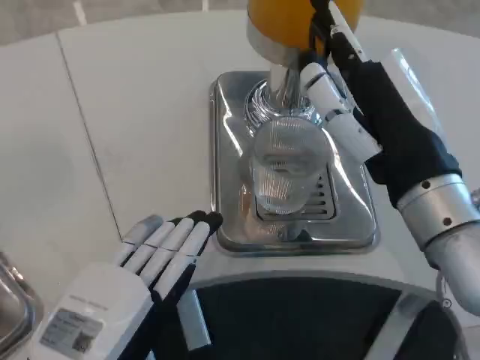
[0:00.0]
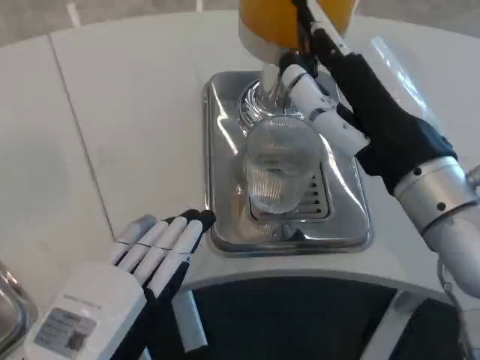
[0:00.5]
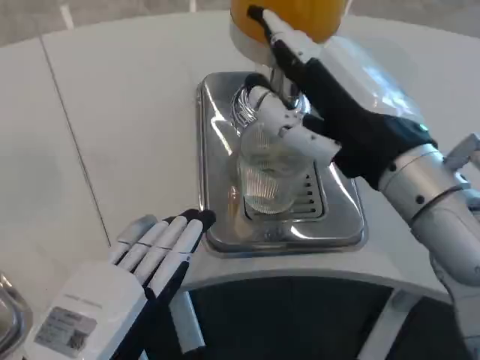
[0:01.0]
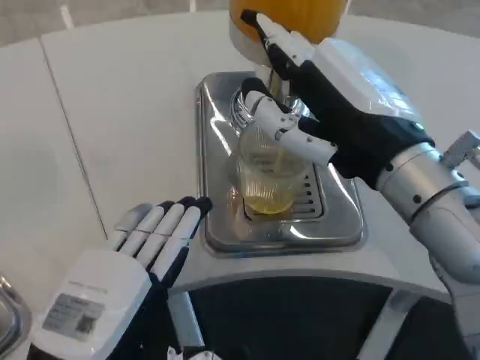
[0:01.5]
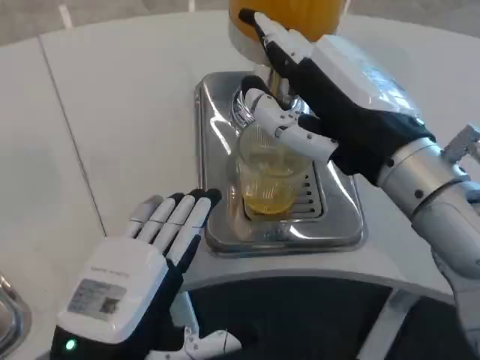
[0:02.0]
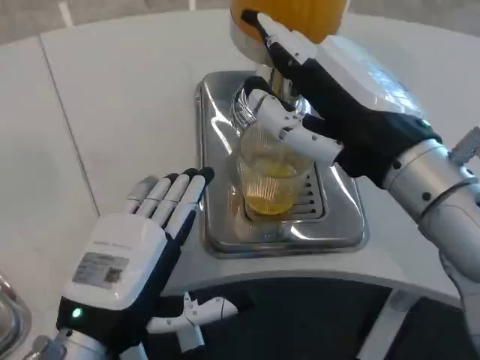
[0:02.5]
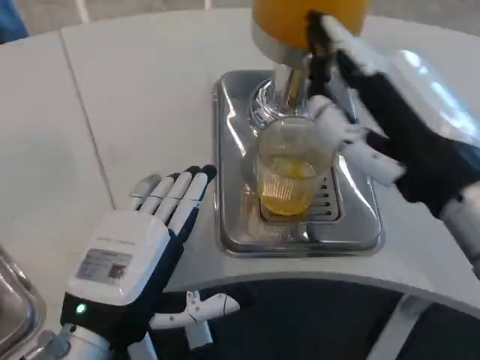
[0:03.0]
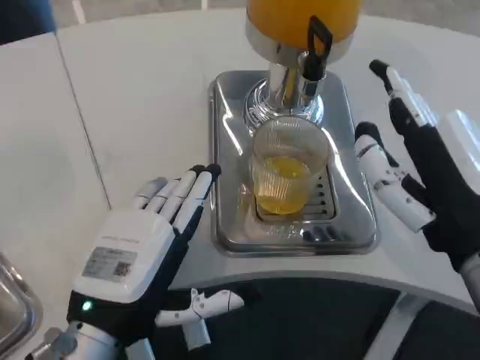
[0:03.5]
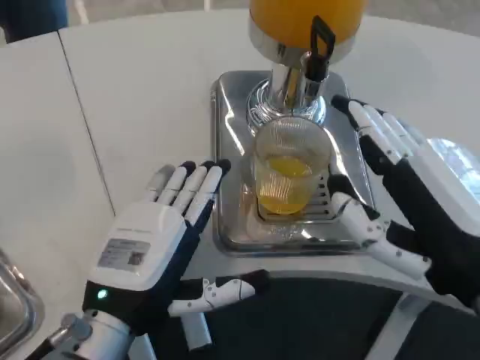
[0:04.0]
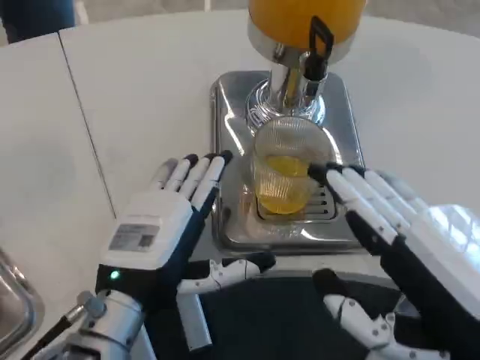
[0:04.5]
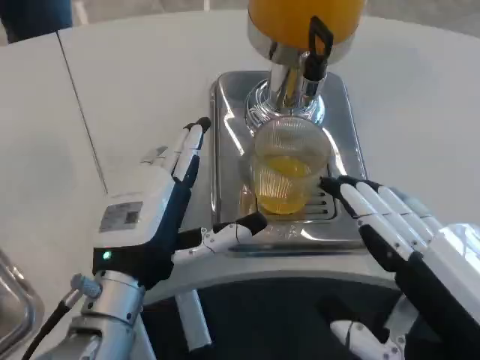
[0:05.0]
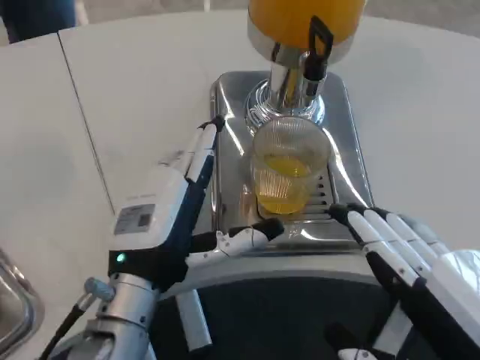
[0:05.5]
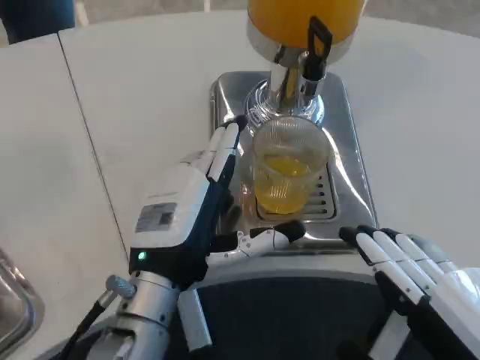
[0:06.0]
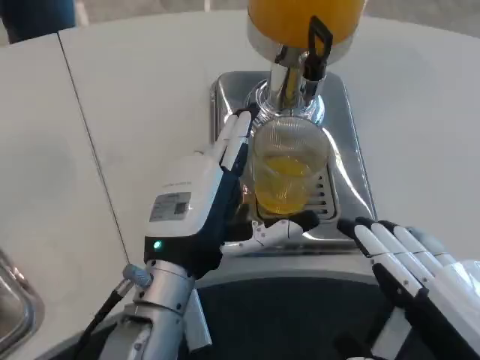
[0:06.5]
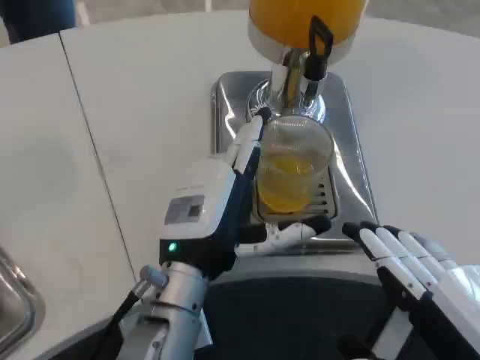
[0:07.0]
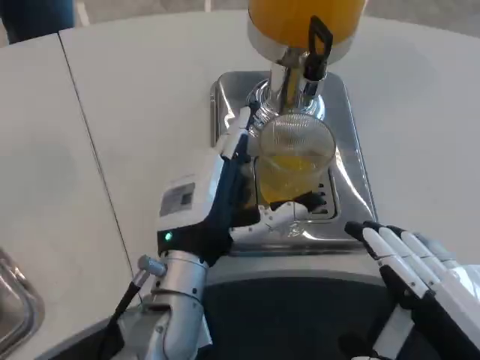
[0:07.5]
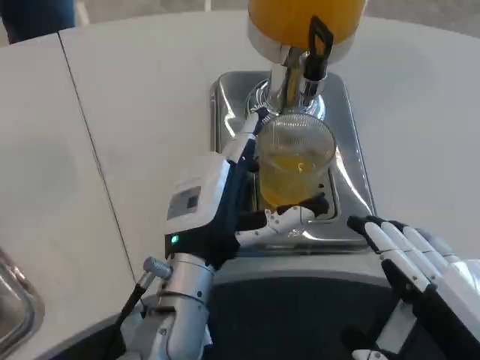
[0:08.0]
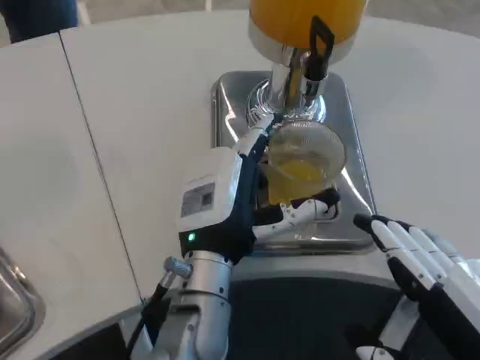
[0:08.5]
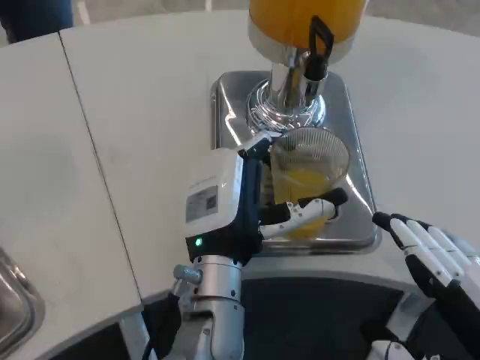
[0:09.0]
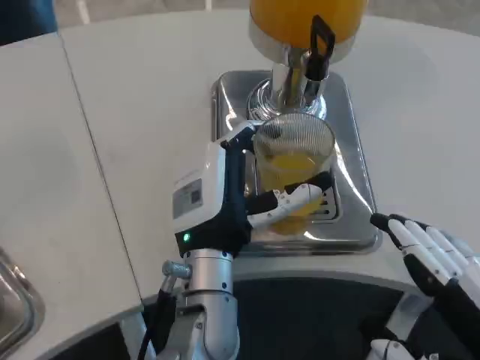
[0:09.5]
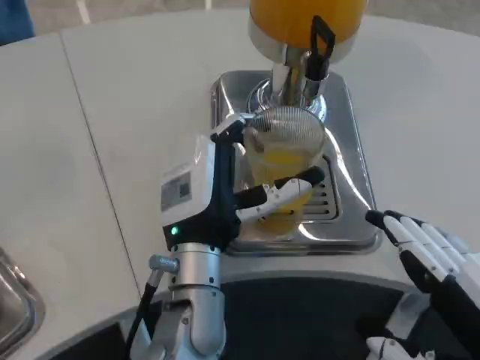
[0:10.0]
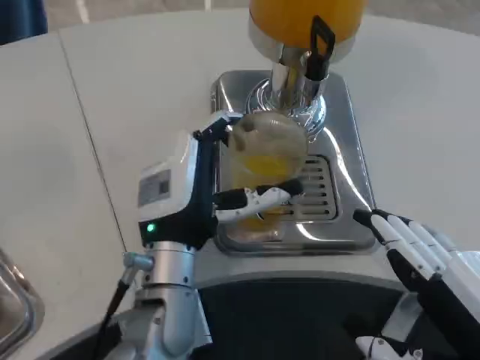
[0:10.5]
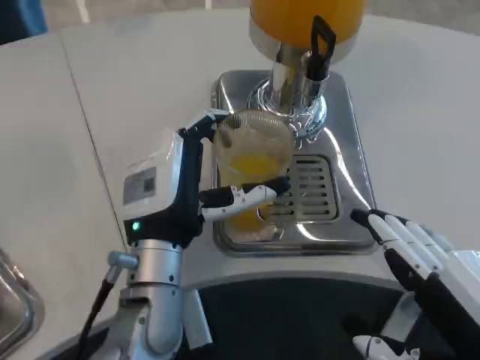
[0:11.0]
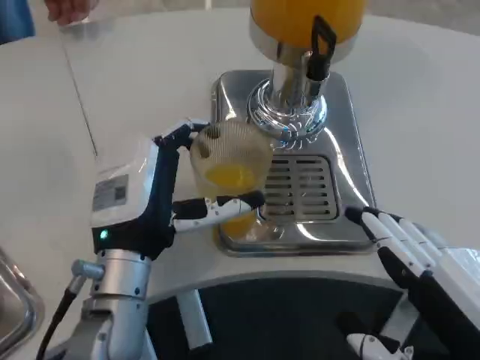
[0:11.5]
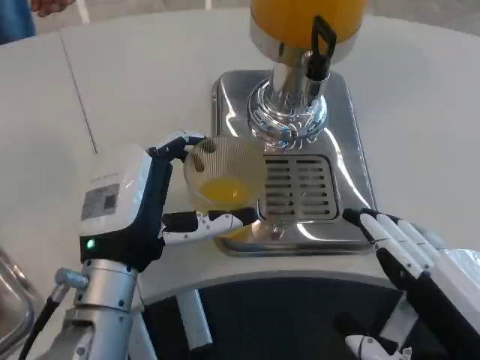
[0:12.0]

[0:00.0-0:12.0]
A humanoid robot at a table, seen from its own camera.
Task of the whole recording: Grasp the cup under the faucet to collect the drink, then remove the cup.
0:02.0 to 0:04.0: The right hand travels backward, downward and to the right by approximately 10 cm.
0:04.0 to 0:06.0: The right hand is displaced backward by approximately 5 cm. The left hand shifts by approximately 5 cm.
0:06.0 to 0:08.0: The hands move only a little.
0:08.0 to 0:10.0: There are only small adjustments of the hands.
0:10.0 to 0:12.0: The left hand heads to the left, covering about 10 cm.

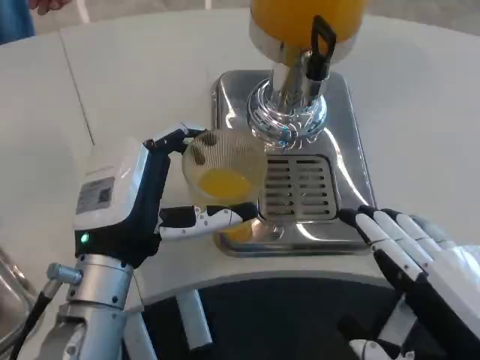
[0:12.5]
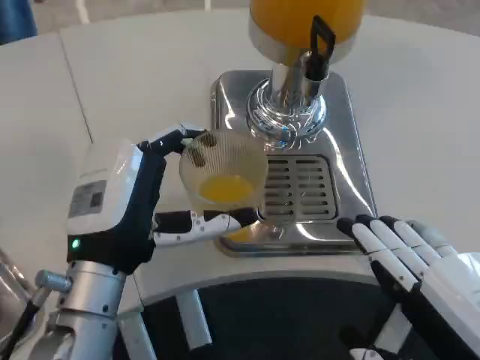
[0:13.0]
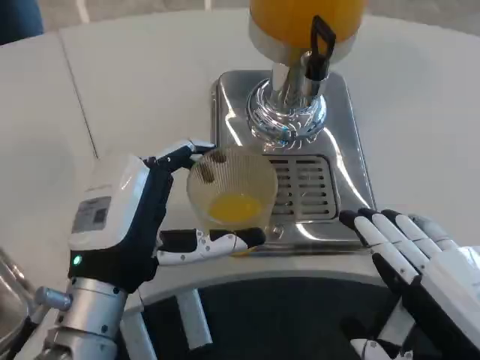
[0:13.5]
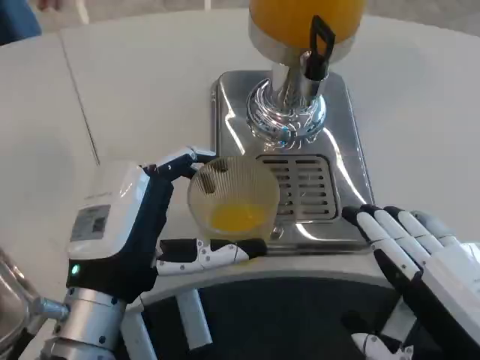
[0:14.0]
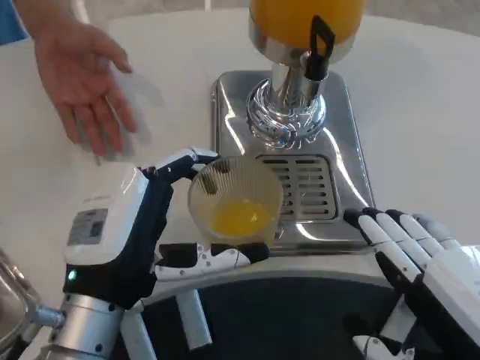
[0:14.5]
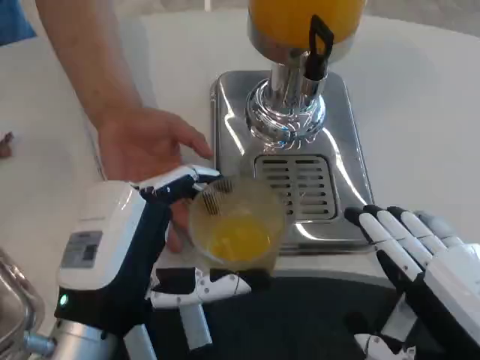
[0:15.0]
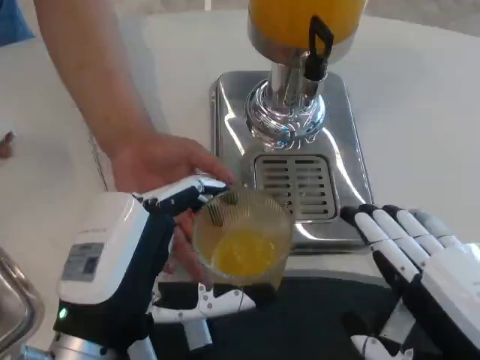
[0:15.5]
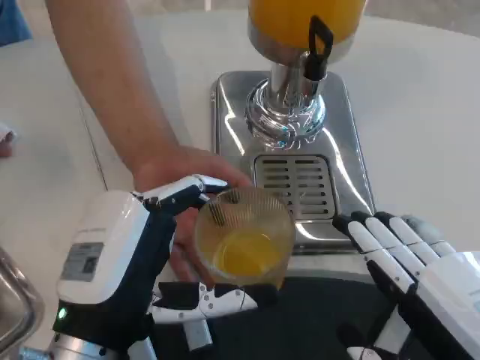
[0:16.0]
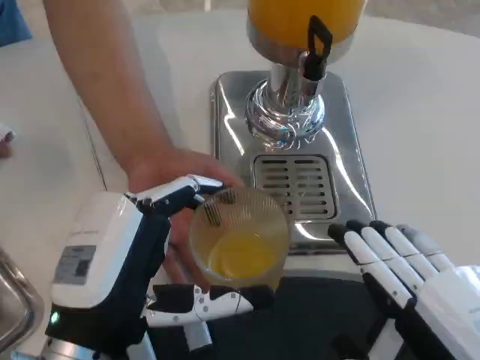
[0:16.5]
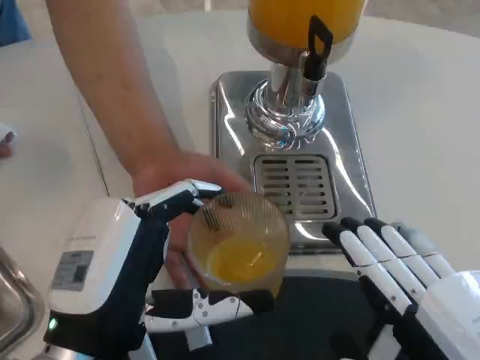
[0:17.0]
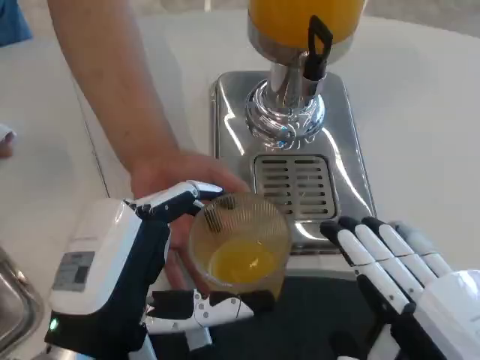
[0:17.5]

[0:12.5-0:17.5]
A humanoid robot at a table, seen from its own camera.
Task of the whole recording: Grasp the cup under the faucet to collect the drink, then remove the cup.
0:12.5 to 0:15.0: The left hand shifts roughly 5 cm backward.

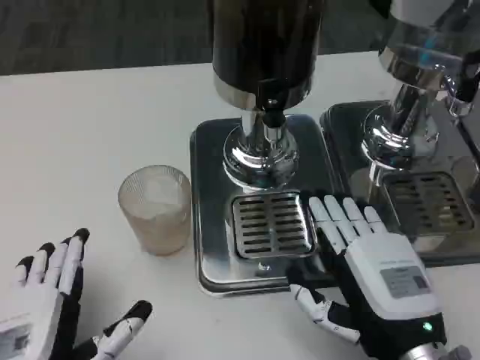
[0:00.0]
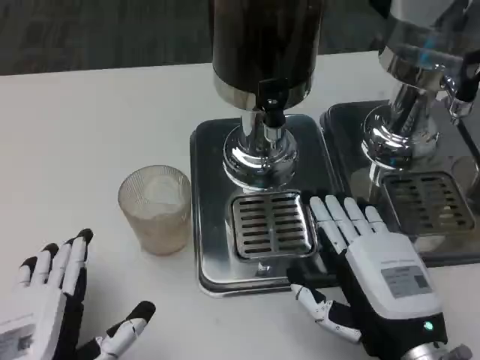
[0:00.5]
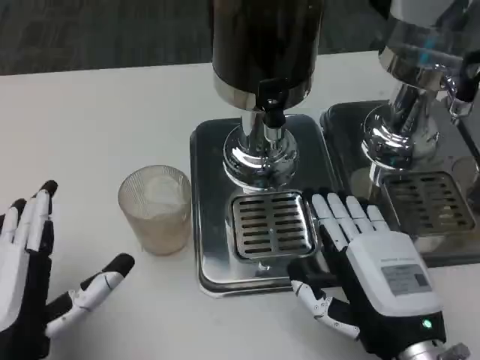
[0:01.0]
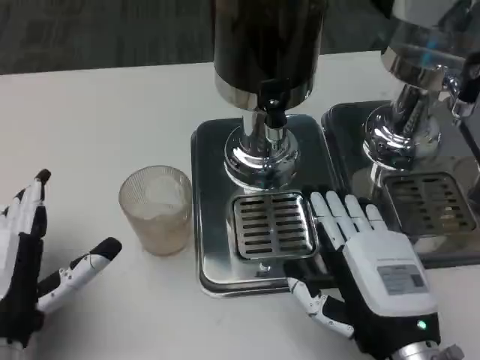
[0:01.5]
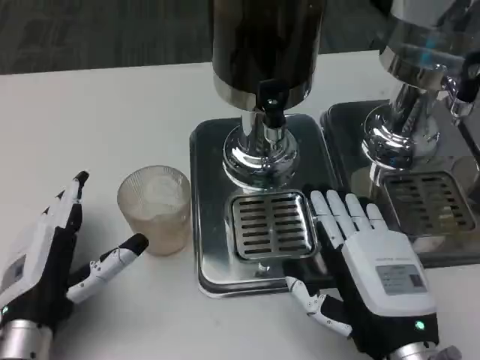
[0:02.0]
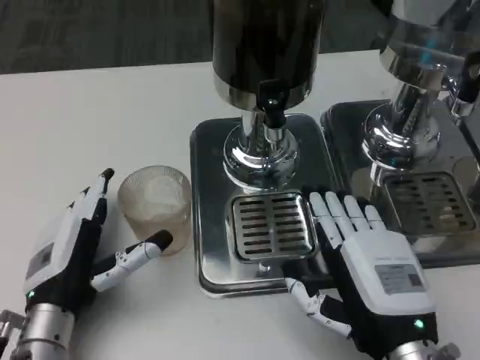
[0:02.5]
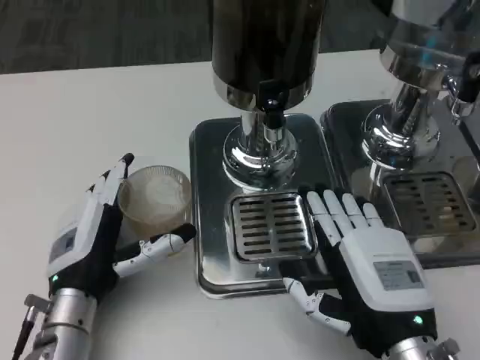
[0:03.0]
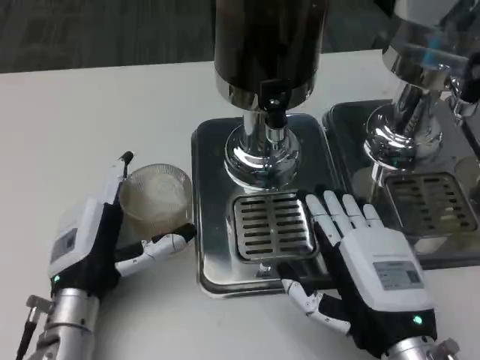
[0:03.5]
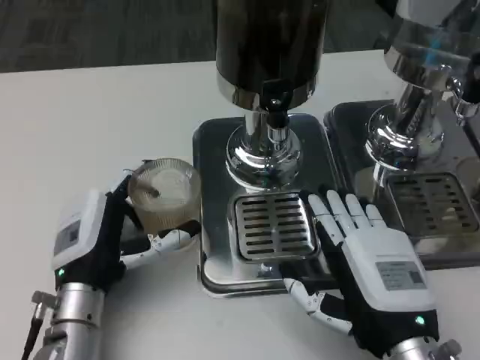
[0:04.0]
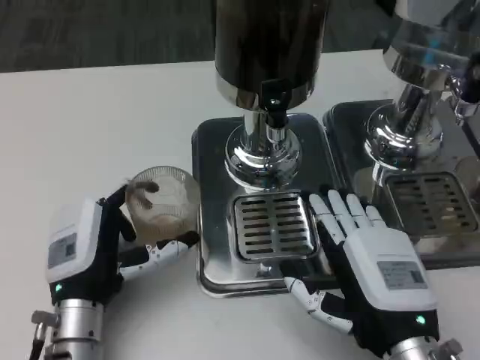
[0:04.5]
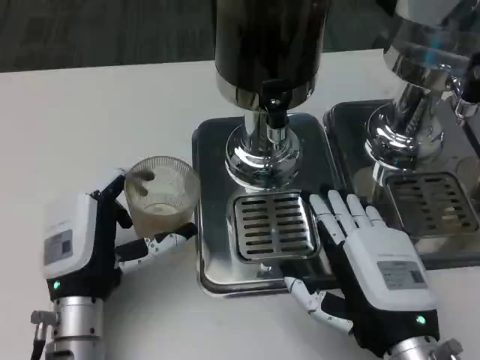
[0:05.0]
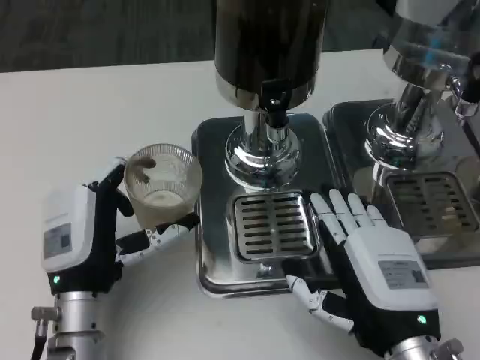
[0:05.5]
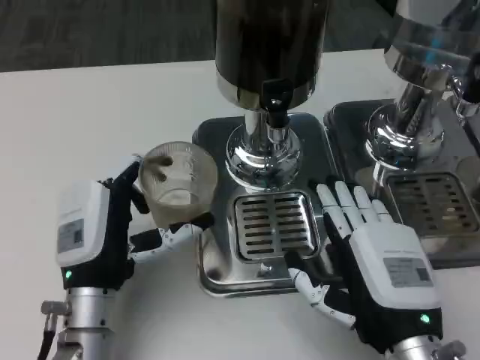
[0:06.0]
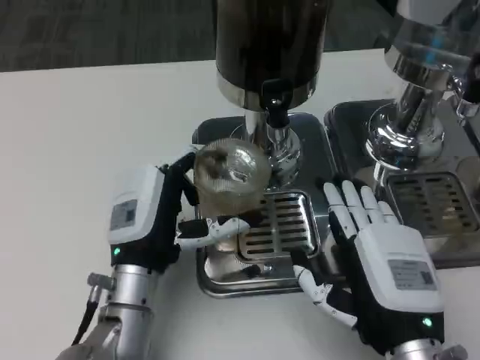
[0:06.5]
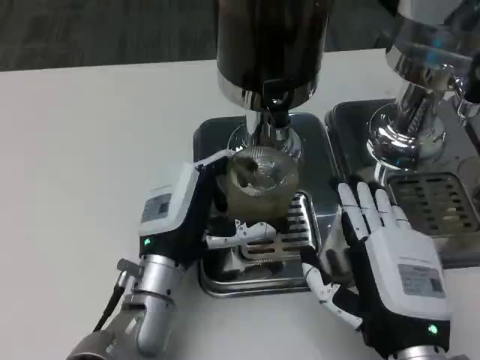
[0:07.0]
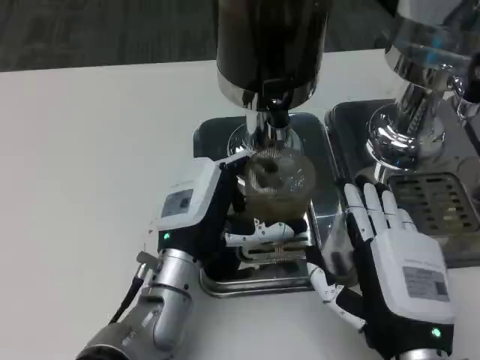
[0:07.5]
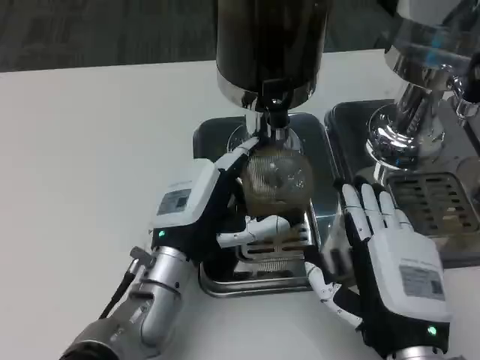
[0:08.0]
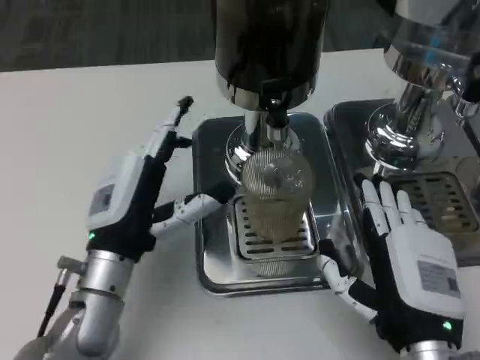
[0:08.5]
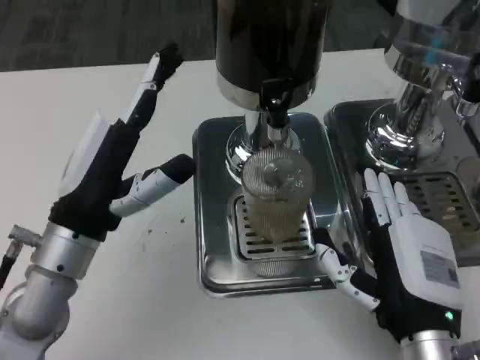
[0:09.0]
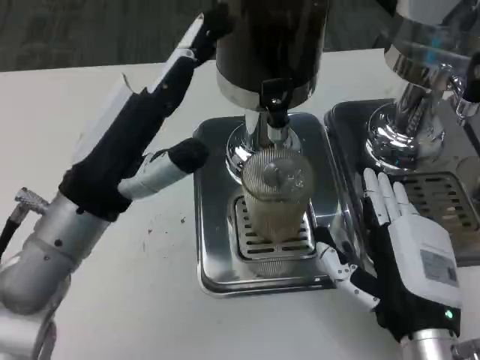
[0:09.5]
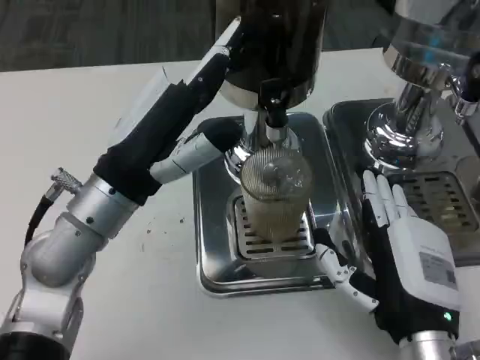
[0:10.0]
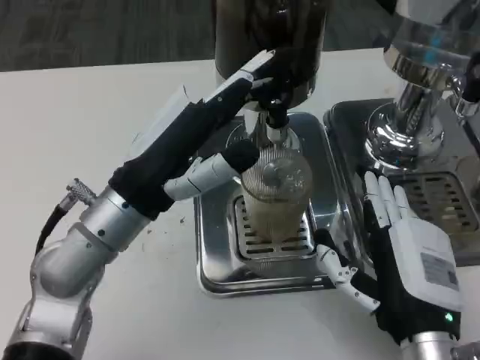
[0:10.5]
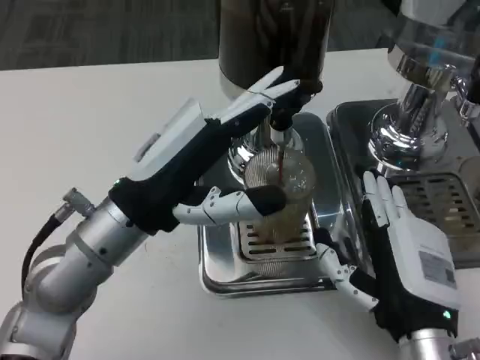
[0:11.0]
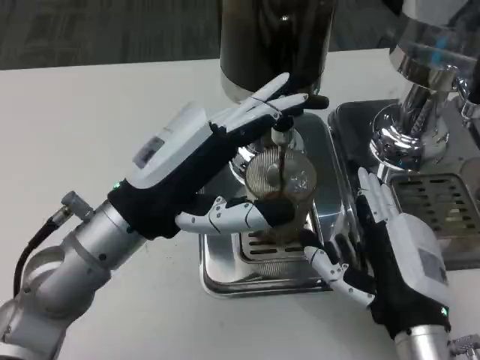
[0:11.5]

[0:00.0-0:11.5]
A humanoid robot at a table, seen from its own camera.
Task of the whole recording: Grasp the cup under the faucet to collect the drink, then remove the cup.
0:00.0 to 0:02.0: The left hand moves forward, roughly 10 cm.
0:02.0 to 0:04.0: The left hand shifts by about 5 cm.
0:04.0 to 0:06.0: There are only small adjustments of the hands.
0:06.0 to 0:07.5: The left hand goes approximately 5 cm to the right.
0:07.5 to 0:09.5: The left hand travels upward and to the left by approximately 15 cm.
